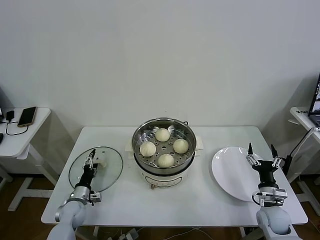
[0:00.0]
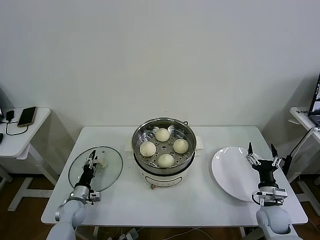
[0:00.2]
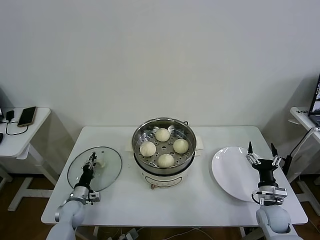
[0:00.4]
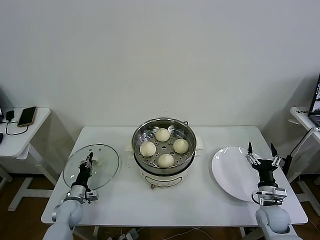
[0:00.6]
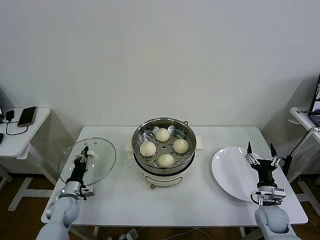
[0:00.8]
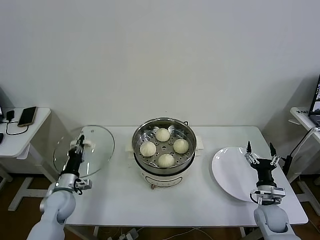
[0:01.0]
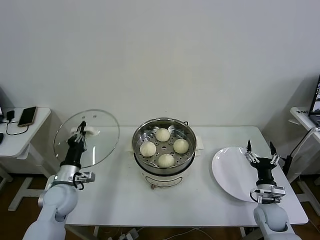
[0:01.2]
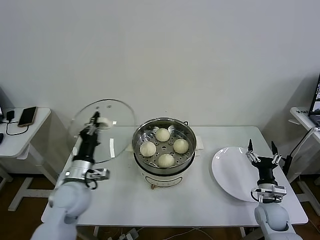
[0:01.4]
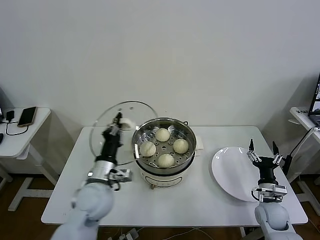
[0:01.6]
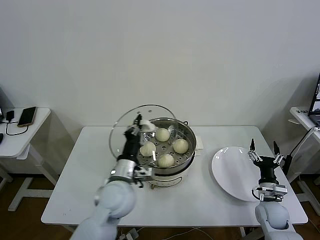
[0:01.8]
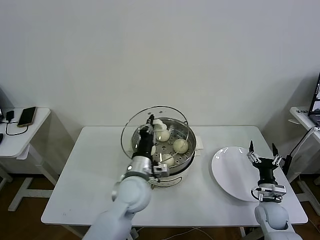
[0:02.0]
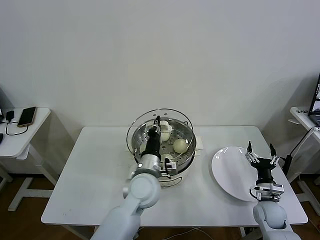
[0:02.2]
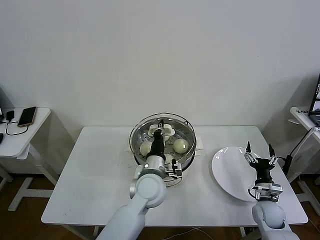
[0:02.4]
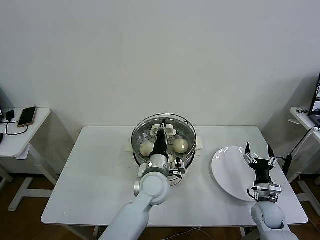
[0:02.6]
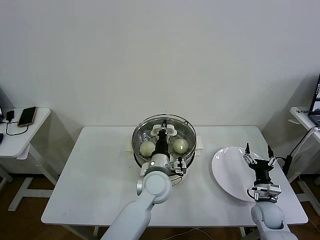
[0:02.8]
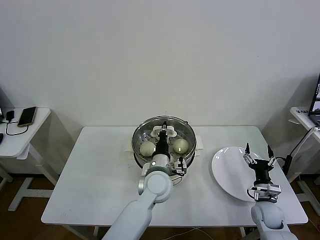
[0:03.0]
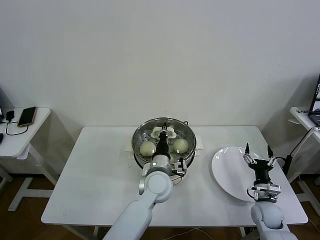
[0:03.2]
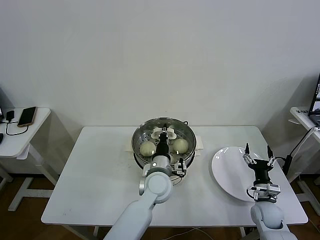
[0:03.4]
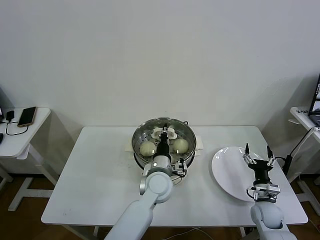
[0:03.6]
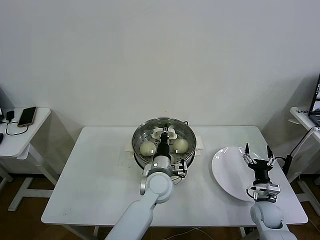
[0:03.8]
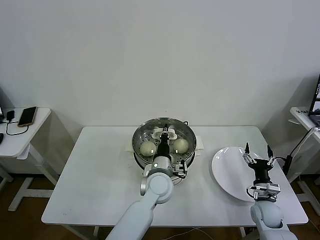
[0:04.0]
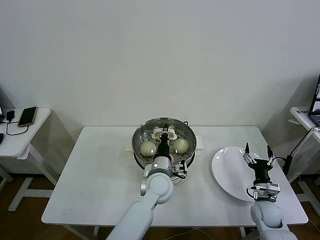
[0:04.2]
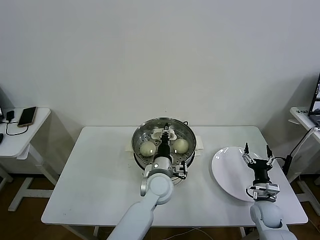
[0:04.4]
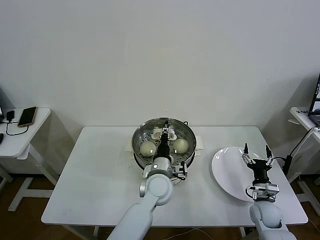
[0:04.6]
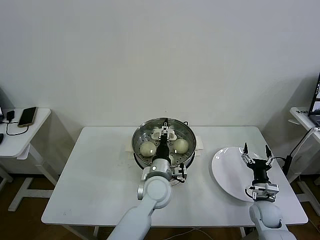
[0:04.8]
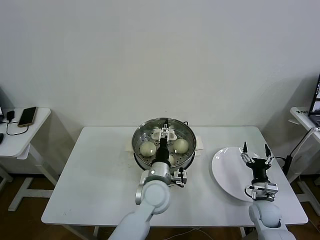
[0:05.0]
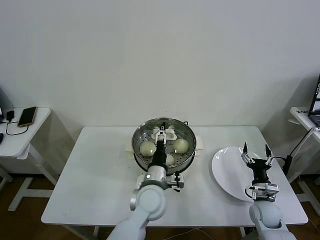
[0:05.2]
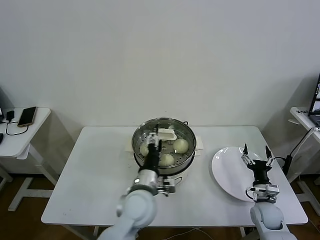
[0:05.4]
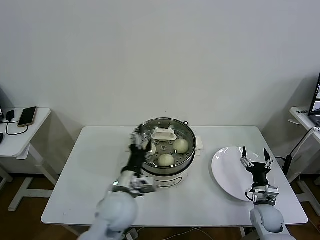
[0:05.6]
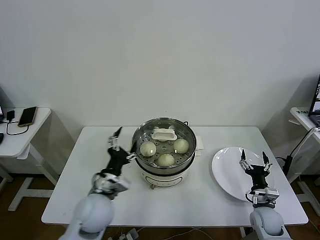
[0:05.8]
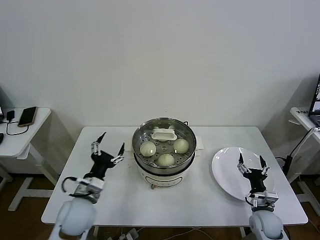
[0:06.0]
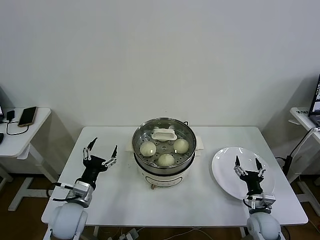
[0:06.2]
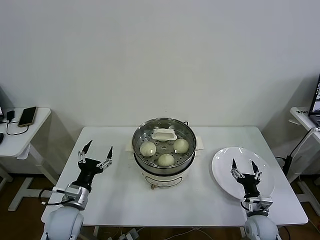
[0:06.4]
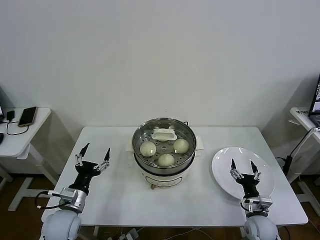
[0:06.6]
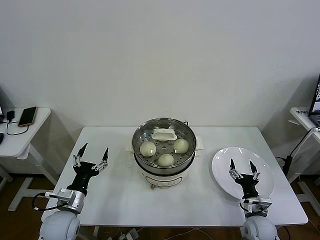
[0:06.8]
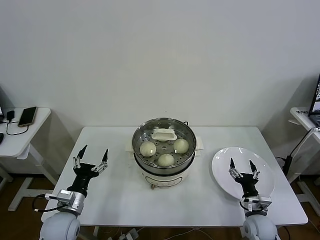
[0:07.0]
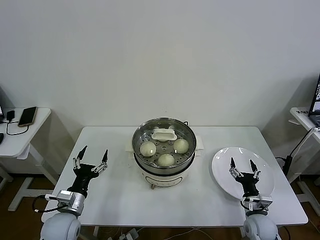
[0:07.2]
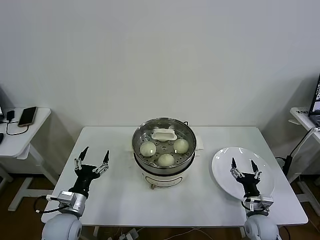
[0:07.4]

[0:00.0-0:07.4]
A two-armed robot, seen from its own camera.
Task of the whole recording: take steamed baozi put them in steamer then cover it.
Step, 0.8 to 4.8 s: Place the pot lid on the steamer with left gripper.
0.0 to 1.4 s: The left gripper travels upward by roughly 20 cm, and closes its fingers.
1.4 to 3.0 s: The left gripper moves to the right, some 25 cm.
3.0 to 4.4 s: There are only small adjustments of the grippers.
4.4 to 6.0 s: The left gripper goes some 20 cm to the left, and opens.
6.0 to 7.4 s: The left gripper shifts about 10 cm to the left and downward.

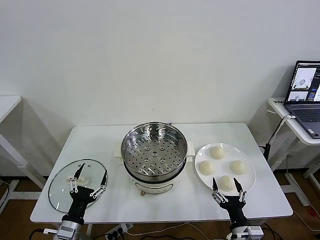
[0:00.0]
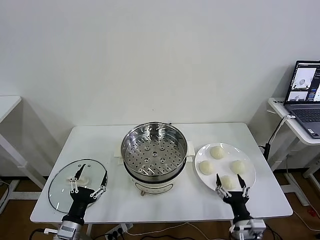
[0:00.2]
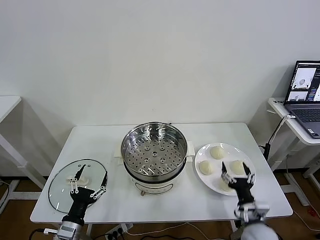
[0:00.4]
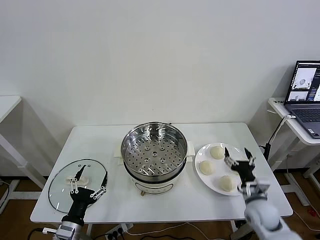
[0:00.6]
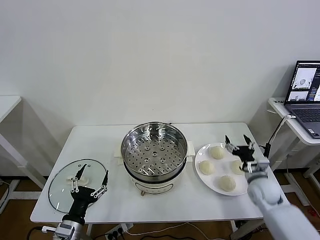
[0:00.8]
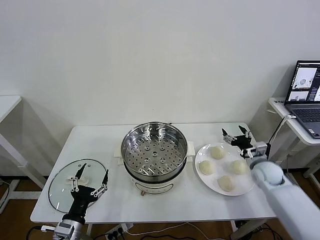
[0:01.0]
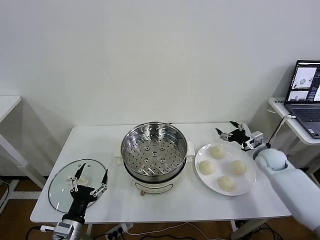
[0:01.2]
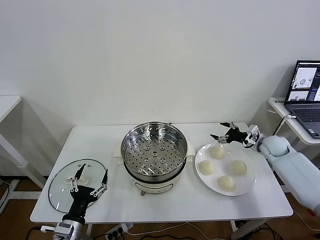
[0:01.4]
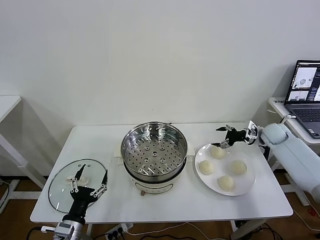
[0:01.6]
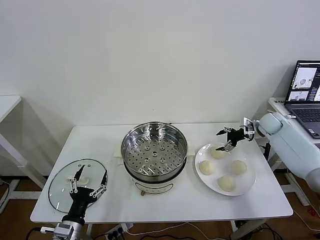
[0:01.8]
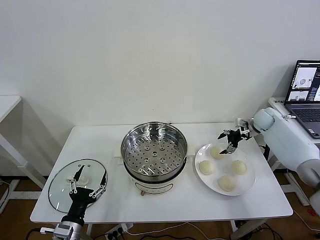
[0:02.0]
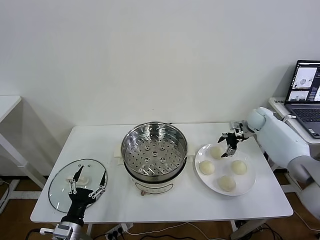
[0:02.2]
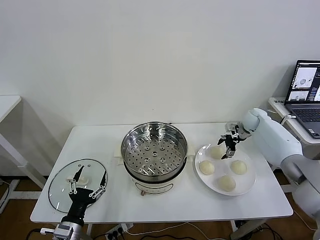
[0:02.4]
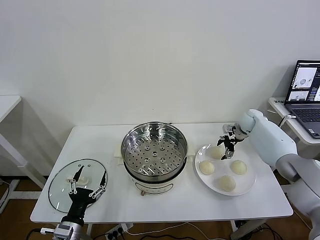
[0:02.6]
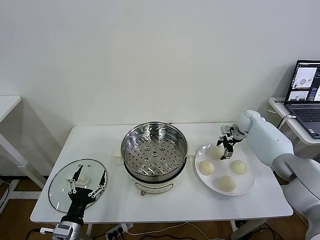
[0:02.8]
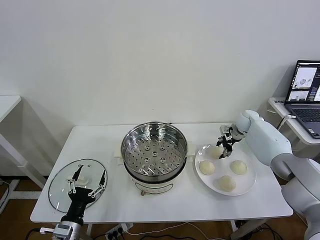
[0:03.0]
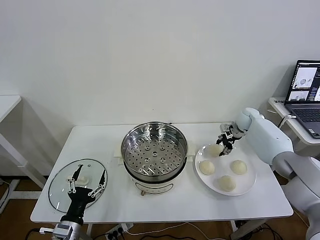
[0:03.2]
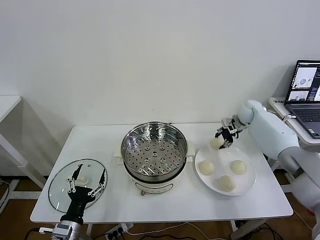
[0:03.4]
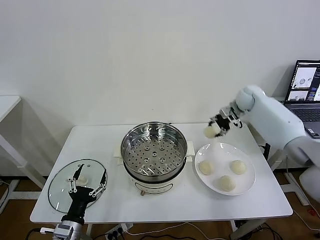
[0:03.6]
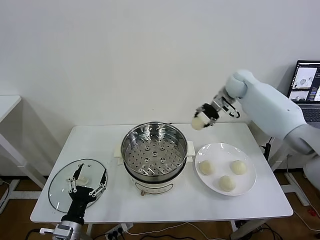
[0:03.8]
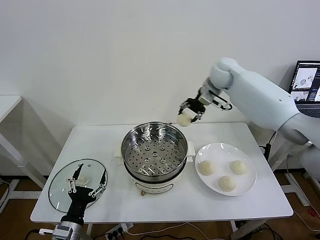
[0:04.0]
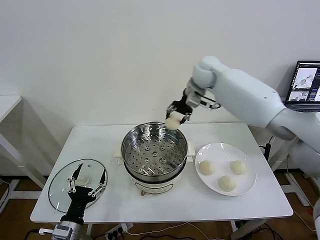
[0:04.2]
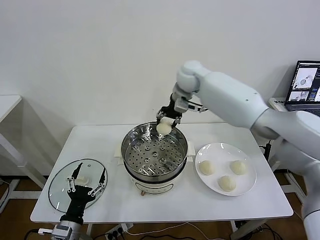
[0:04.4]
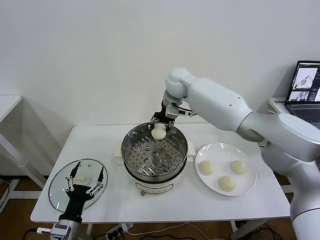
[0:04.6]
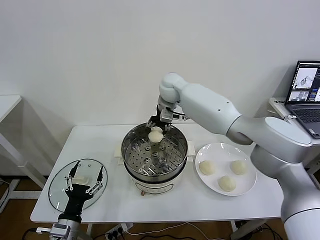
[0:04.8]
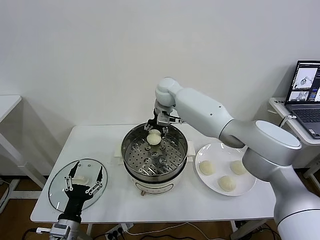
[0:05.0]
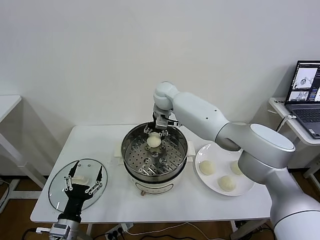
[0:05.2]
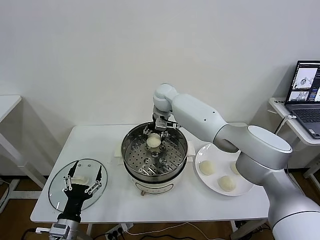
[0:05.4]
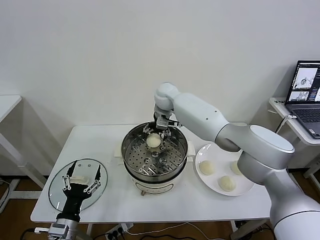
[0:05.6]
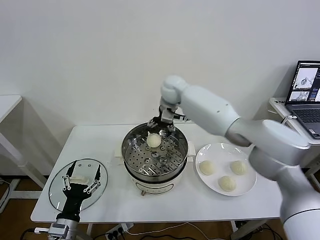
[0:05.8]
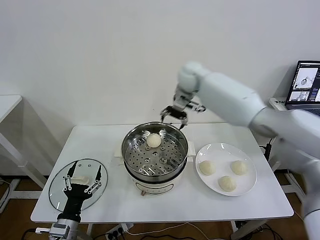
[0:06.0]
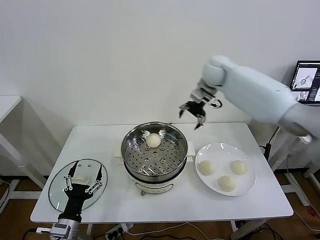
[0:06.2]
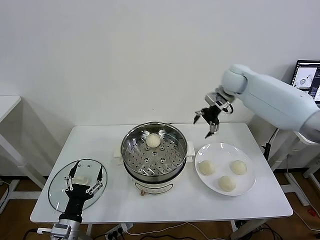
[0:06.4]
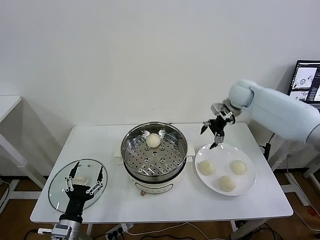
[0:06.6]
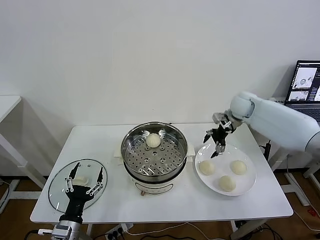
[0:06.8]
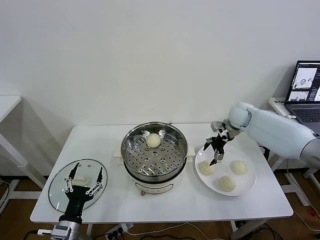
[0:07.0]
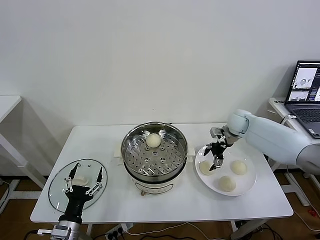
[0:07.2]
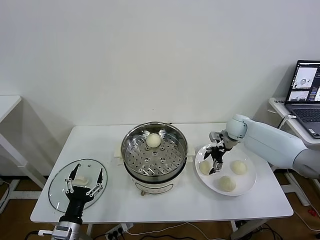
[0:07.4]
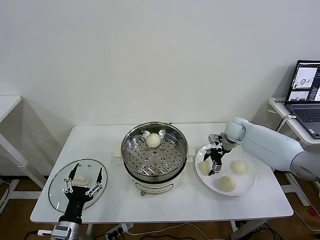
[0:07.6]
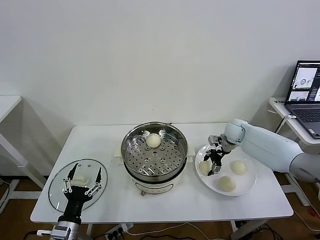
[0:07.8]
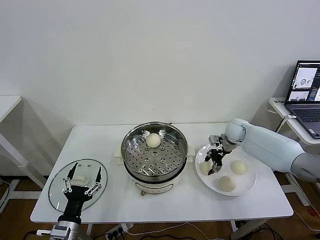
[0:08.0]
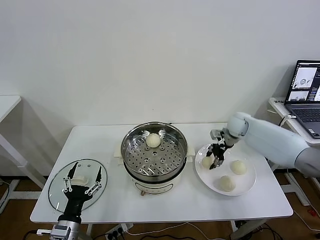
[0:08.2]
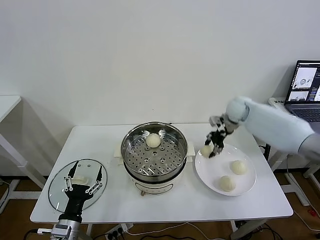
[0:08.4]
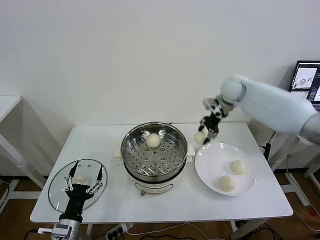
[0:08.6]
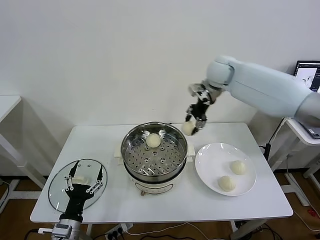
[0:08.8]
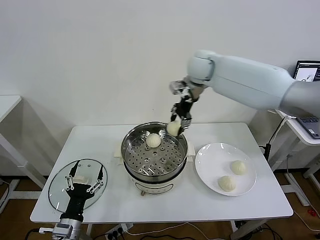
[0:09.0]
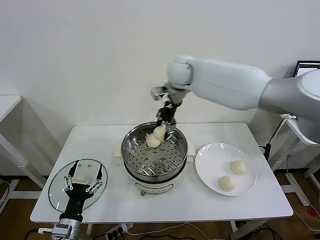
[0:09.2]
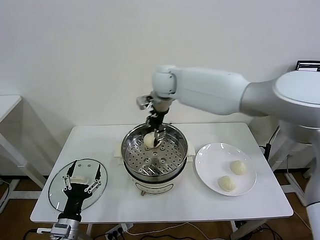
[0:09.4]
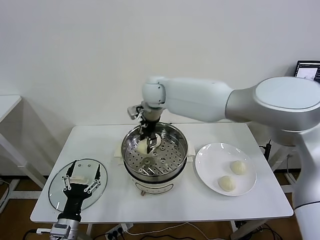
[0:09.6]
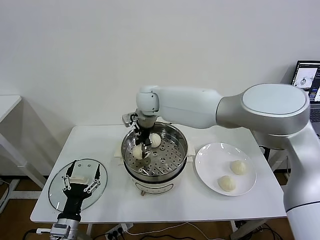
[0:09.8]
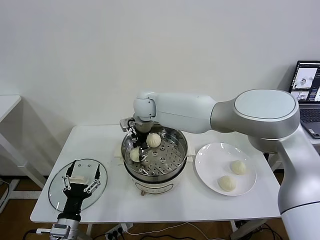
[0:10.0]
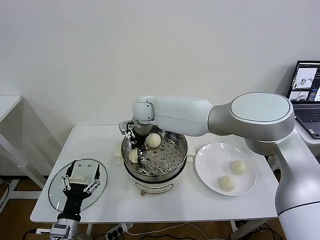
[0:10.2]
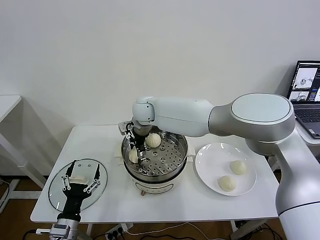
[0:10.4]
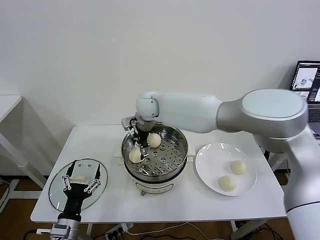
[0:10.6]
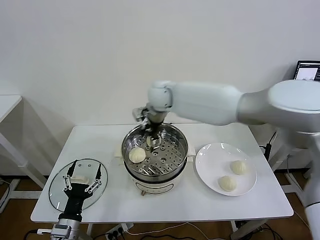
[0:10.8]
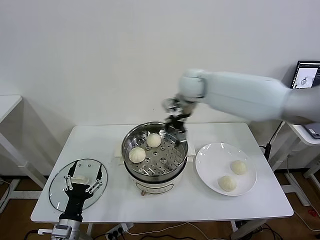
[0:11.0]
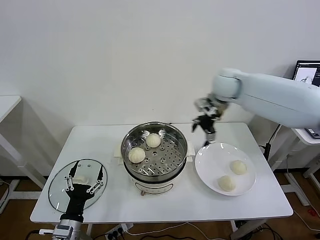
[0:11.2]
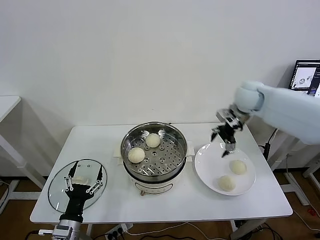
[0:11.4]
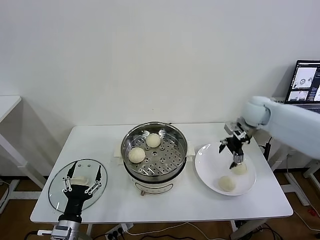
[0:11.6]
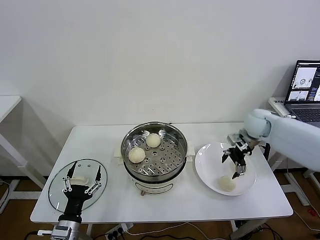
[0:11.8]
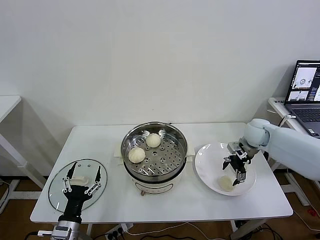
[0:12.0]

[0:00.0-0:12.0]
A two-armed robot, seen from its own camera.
Task of the whole recording: take steamed baozi put them in steamer then cover it.
Step, 0.0 to 3.0 s: Grasp the baozi in the plate with right gripper.
Step, 3.2 to 5.6 s: Place the baozi on the steamer with right gripper.
Step, 5.8 to 7.8 s: Grasp the baozi in the plate with right gripper.
Step, 8.0 to 10.4 s: Place the baozi on the steamer with right gripper.
1.6 to 3.0 s: The right gripper heads to the left and forward, covering roughly 10 cm, and closes its fingers.
3.0 to 4.4 s: The right gripper shifts about 35 cm to the left and upward.
4.4 to 6.0 s: The right gripper moves to the right, some 10 cm, and opens its fingers.
6.0 to 7.6 s: The right gripper shifts some 30 cm downward and to the right.
7.6 to 9.0 s: The right gripper shifts approximately 35 cm upward and to the left, and closes up.
9.0 to 10.4 s: The right gripper moves to the left and downward, roughly 20 cm, and opens its fingers.
10.4 to 12.0 s: The right gripper shifts approximately 40 cm to the right.

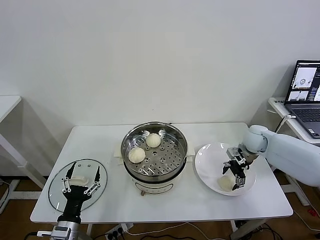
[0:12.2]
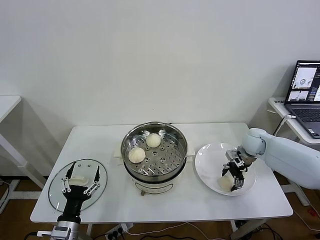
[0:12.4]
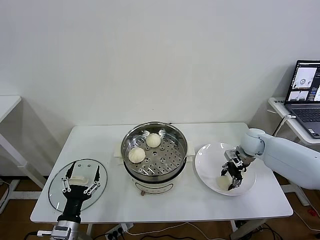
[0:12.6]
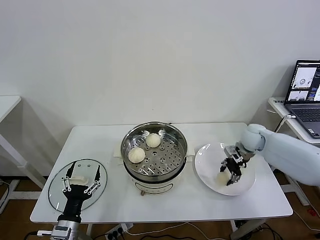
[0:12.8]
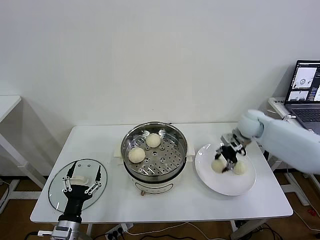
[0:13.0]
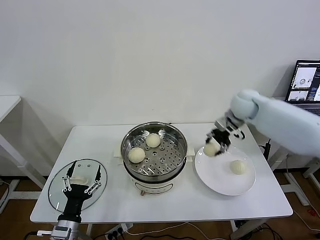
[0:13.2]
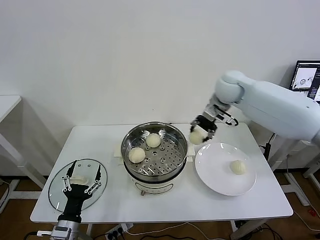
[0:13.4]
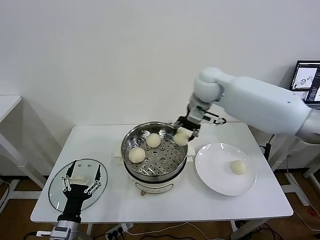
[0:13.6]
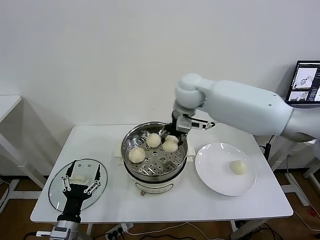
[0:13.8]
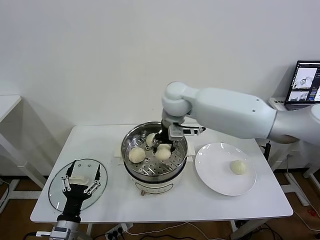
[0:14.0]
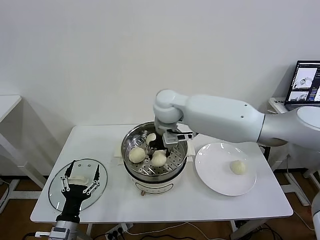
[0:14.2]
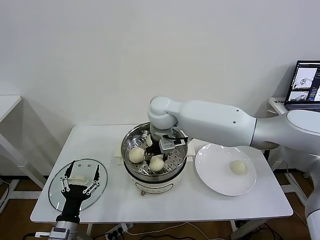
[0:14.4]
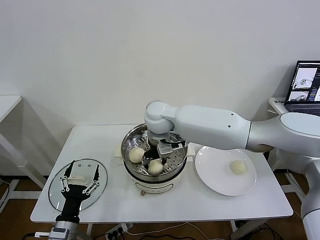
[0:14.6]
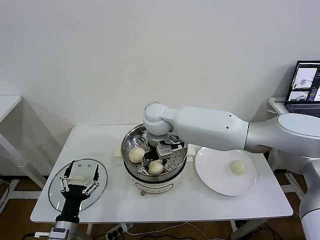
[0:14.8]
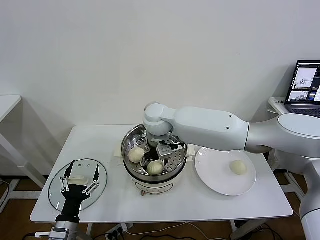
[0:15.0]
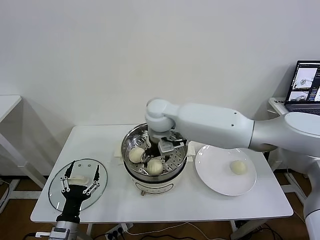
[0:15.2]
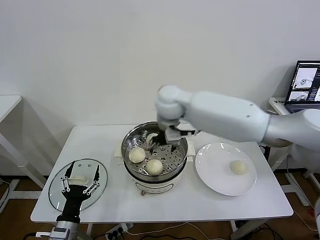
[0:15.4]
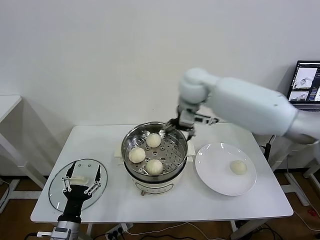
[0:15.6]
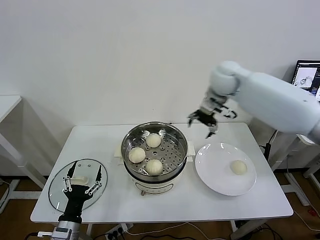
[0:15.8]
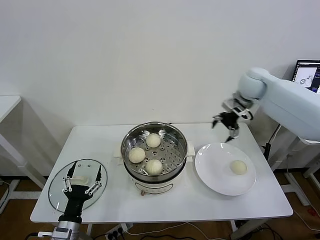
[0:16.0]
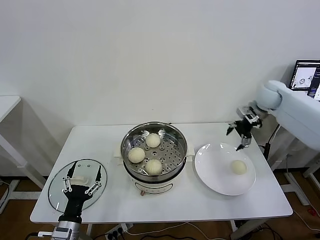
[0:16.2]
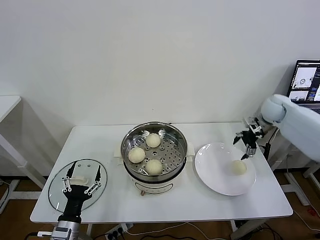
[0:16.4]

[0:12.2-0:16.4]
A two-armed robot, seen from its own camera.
Task of the whole recording: take steamed baozi put them in steamer then cover it.
Step, 12.8 to 15.2 s: Place the baozi on the steamer with right gripper.
12.2 to 13.6 s: The right gripper moves to the left and upward, some 30 cm, and closes its fingers.
13.6 to 15.0 s: The right gripper heads to the left, downward and backward, covering some 15 cm, and opens up.
15.0 to 16.4 s: The right gripper travels to the right by some 40 cm.
